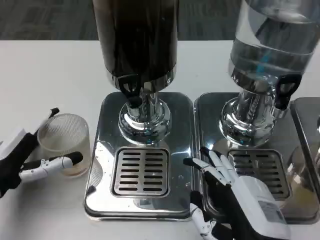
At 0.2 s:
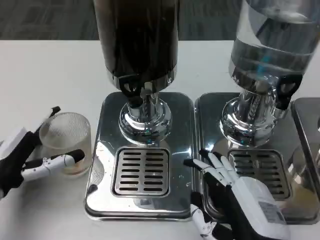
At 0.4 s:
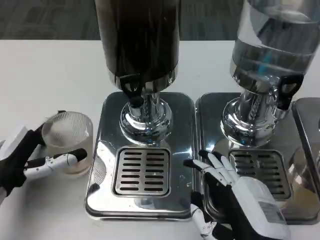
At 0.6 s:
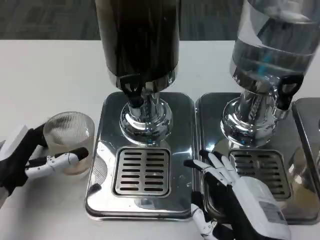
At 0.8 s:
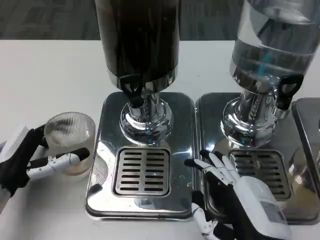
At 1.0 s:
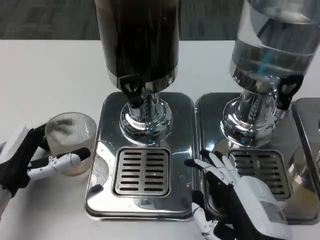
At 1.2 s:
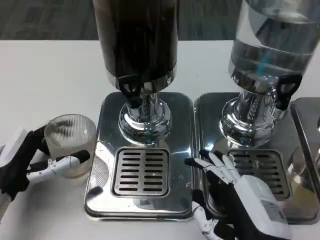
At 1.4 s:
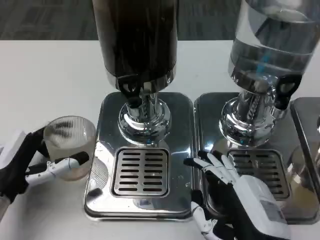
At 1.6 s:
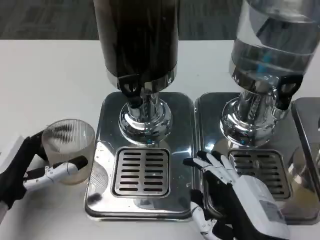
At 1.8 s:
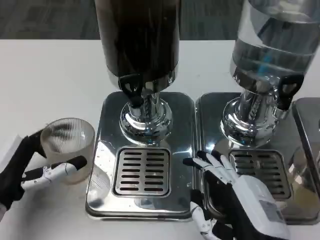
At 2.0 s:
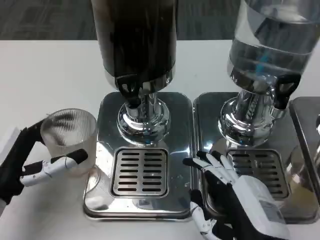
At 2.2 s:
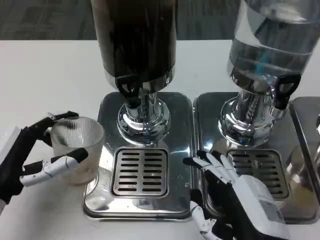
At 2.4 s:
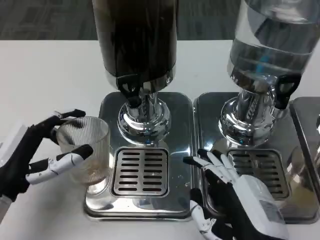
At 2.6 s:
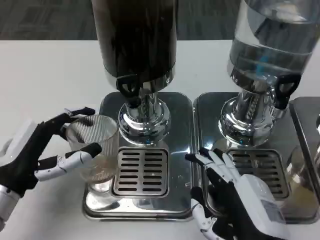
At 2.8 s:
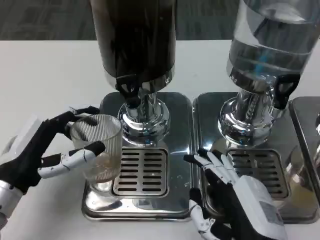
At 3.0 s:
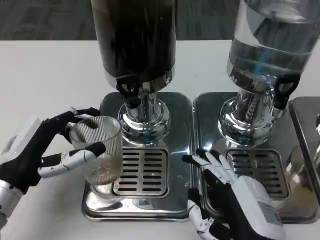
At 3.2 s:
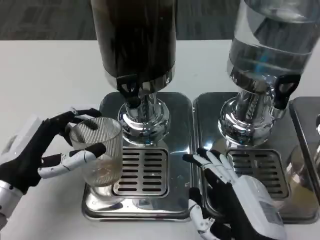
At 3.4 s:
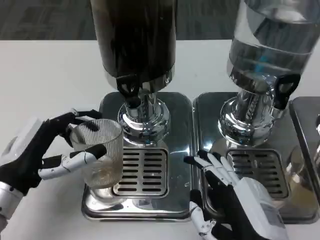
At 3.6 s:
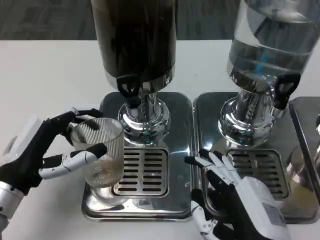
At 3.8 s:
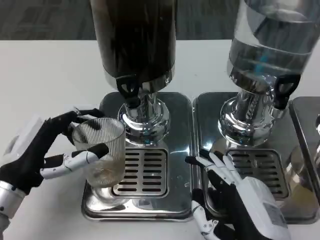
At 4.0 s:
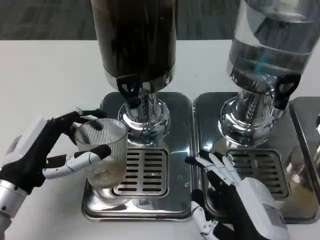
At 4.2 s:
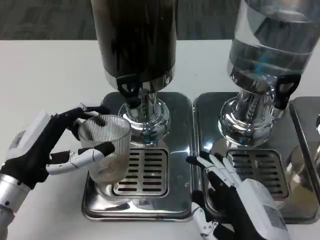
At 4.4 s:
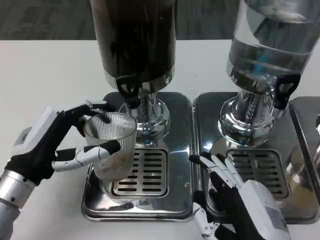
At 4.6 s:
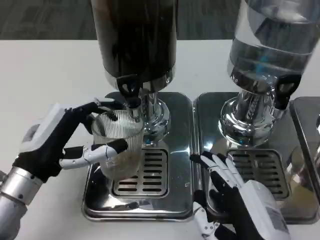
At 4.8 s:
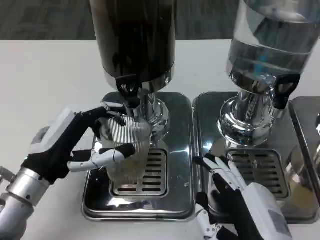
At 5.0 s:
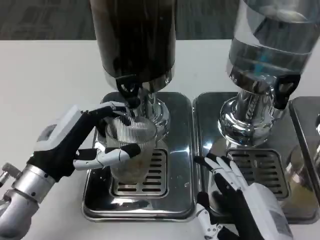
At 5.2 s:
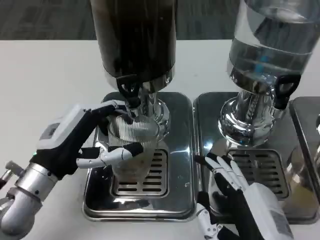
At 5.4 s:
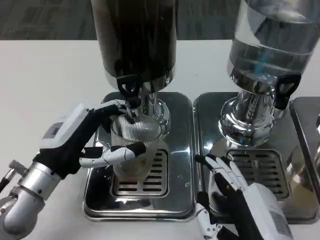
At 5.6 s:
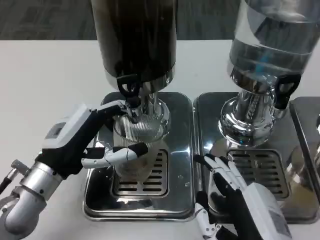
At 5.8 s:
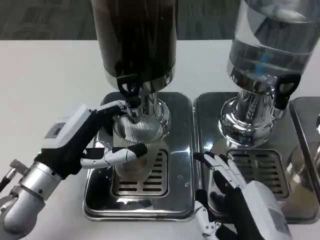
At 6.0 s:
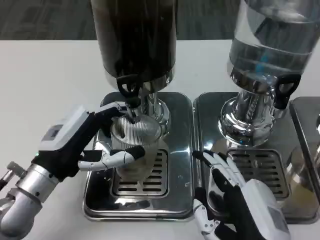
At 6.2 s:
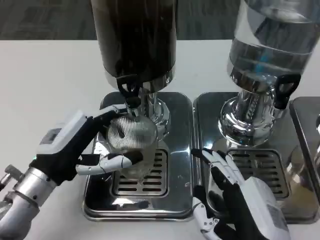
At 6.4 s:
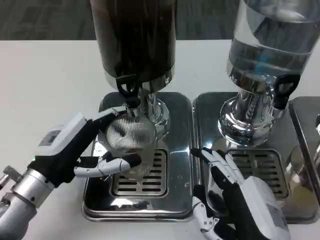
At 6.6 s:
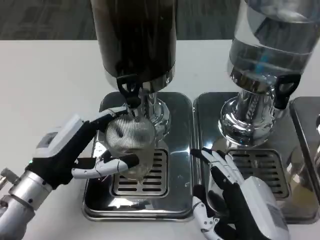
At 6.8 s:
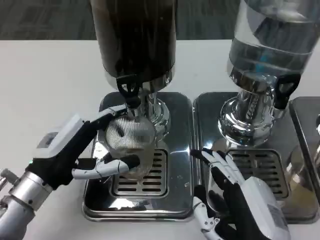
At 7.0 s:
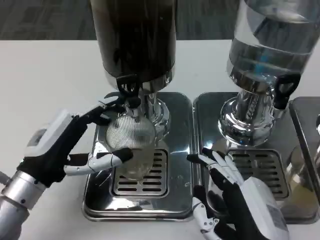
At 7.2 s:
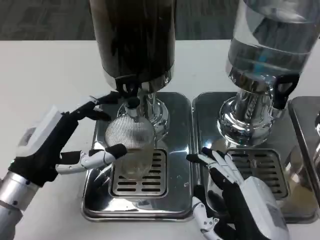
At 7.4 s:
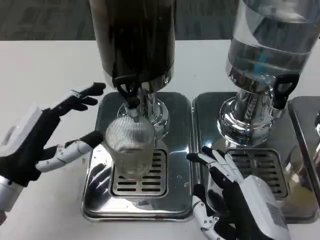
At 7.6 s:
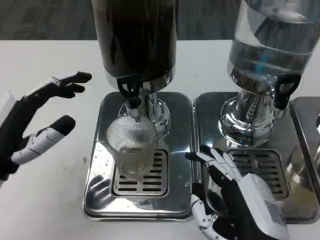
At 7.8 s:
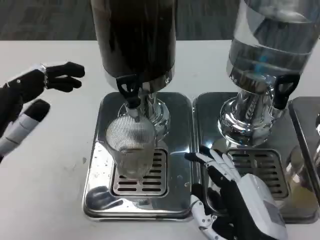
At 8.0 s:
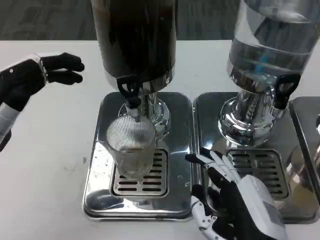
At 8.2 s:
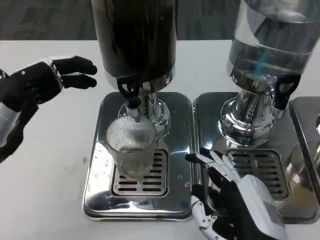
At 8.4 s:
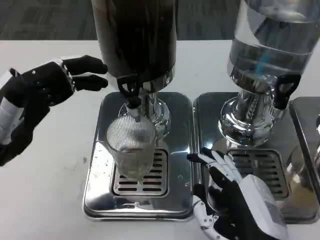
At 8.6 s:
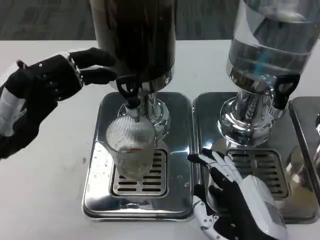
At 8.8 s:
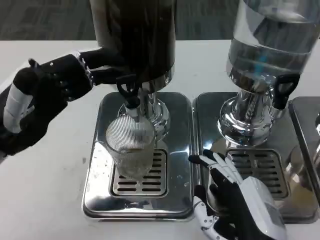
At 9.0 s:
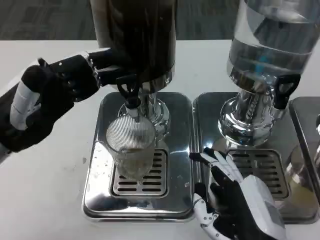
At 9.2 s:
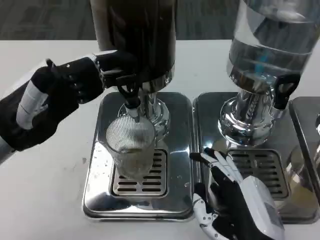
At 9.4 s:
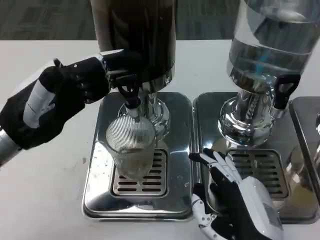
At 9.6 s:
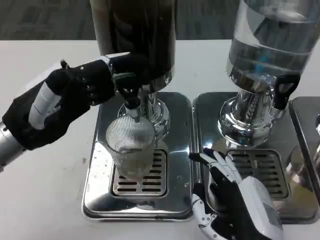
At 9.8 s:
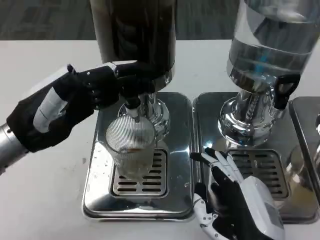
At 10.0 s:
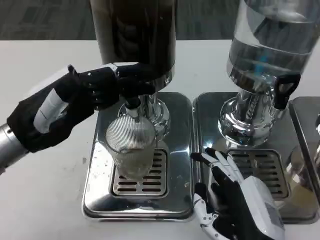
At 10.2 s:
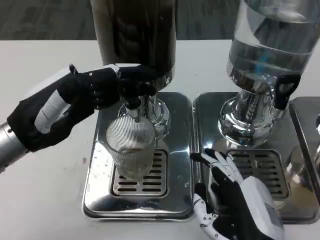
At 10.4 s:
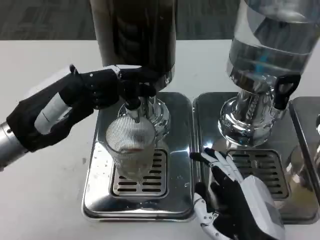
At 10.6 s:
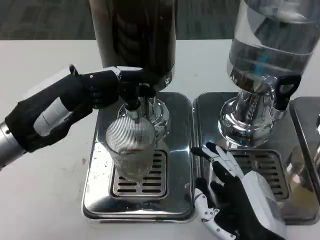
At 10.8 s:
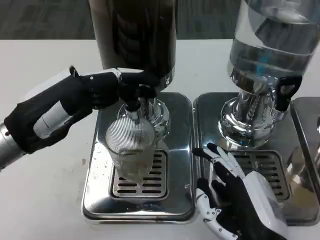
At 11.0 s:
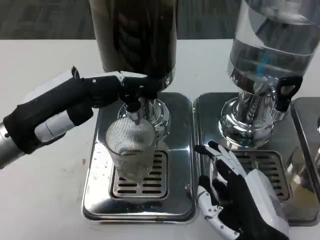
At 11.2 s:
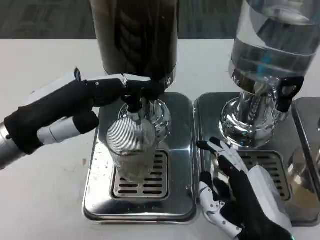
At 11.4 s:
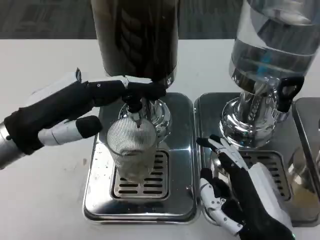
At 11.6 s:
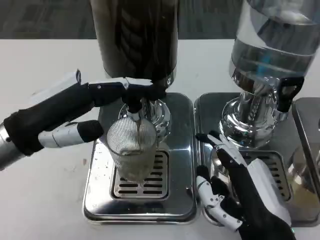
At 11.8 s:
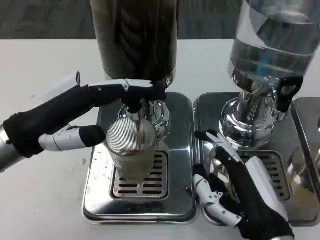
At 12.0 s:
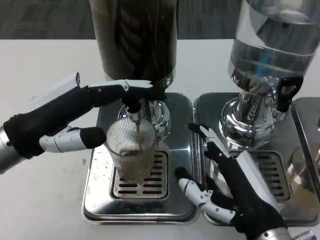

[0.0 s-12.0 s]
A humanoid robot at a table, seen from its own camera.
Task of the whole recording: Grasp the cup under the faucet to collect the drink, then remove the cup.
0.0 to 1.6 s: The hands stay close to where they were, moving slightly.
3.0 to 6.0 s: There are only small adjustments of the hands.
6.0 to 7.6 s: The left hand moves to the left, about 5 cm.
7.6 to 9.0 s: The left hand shifts by about 5 cm.
9.0 to 10.4 s: There are only small adjustments of the hands.

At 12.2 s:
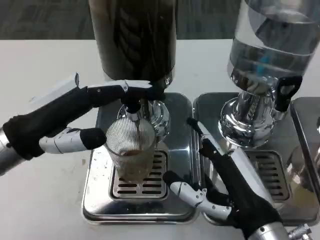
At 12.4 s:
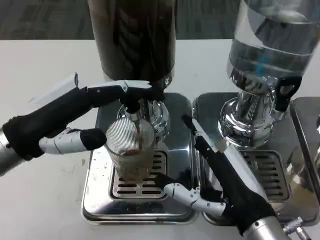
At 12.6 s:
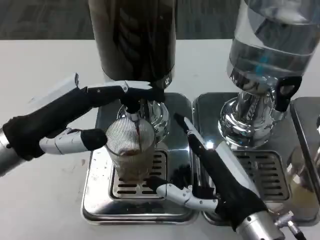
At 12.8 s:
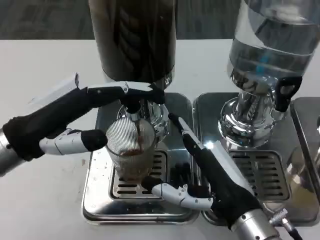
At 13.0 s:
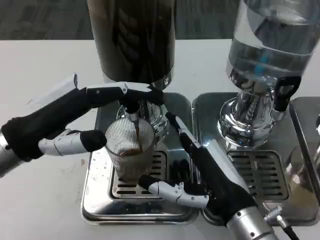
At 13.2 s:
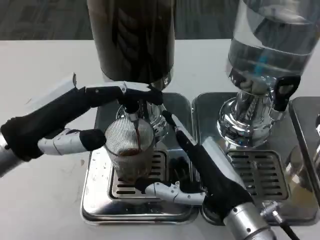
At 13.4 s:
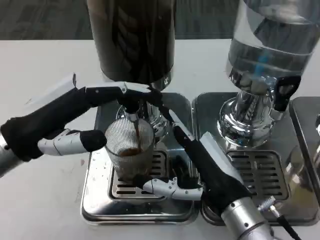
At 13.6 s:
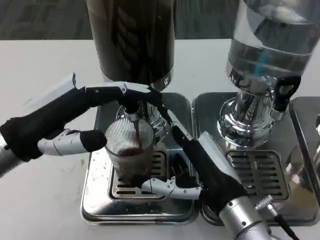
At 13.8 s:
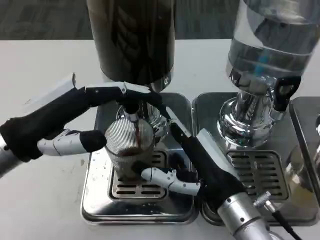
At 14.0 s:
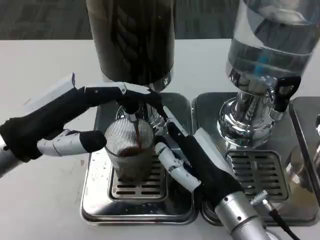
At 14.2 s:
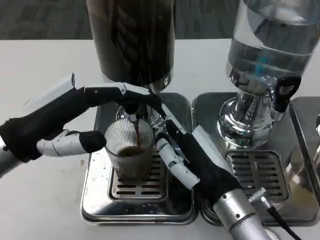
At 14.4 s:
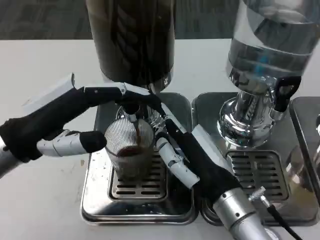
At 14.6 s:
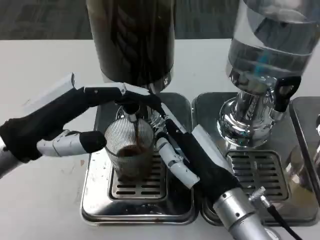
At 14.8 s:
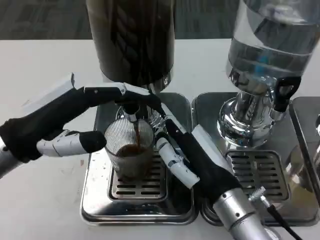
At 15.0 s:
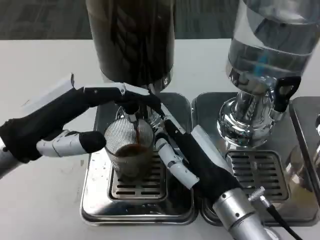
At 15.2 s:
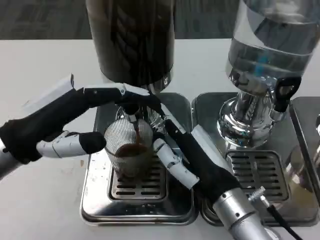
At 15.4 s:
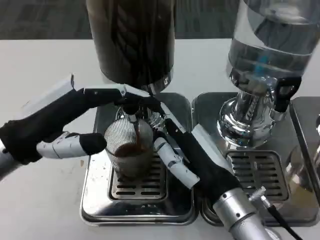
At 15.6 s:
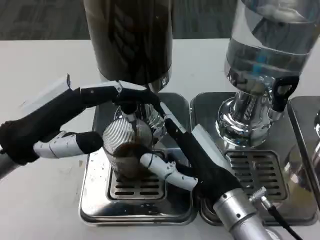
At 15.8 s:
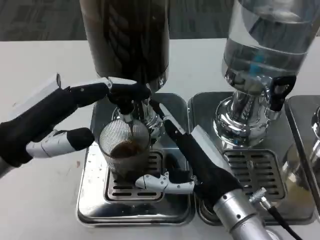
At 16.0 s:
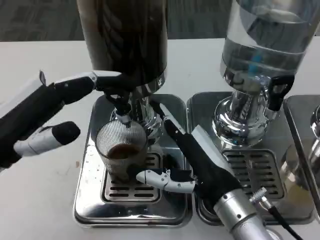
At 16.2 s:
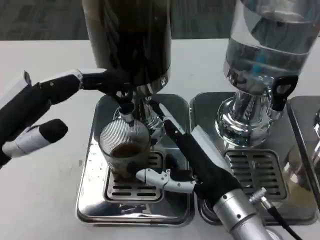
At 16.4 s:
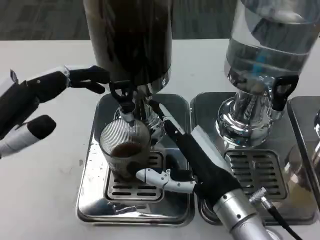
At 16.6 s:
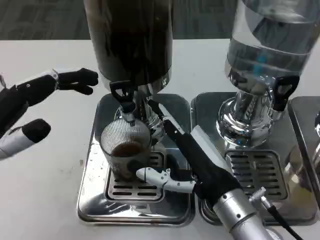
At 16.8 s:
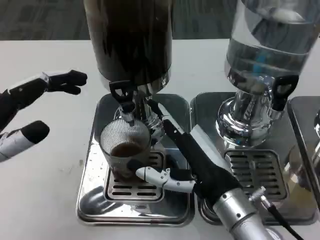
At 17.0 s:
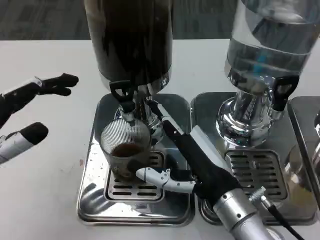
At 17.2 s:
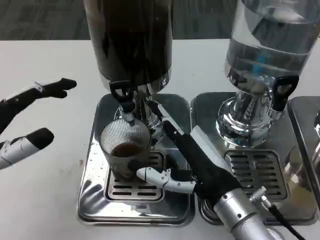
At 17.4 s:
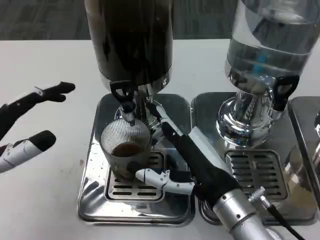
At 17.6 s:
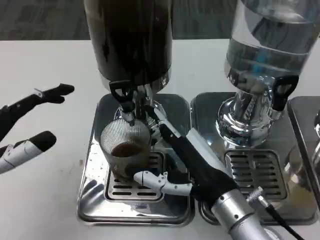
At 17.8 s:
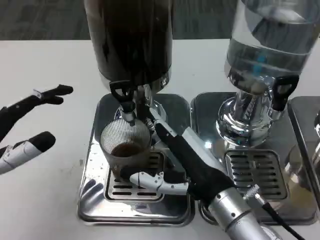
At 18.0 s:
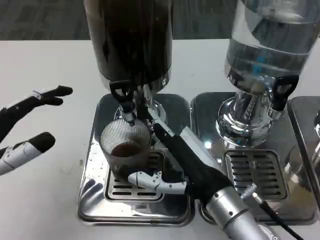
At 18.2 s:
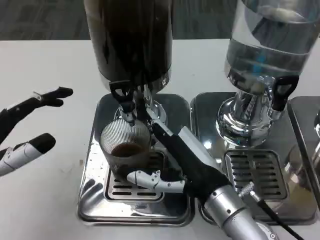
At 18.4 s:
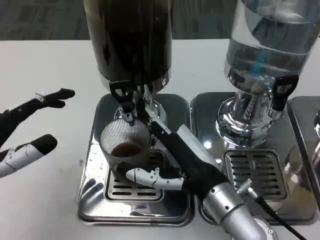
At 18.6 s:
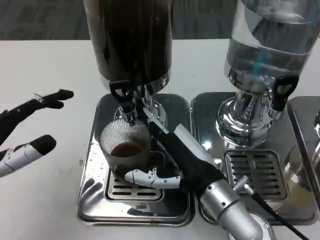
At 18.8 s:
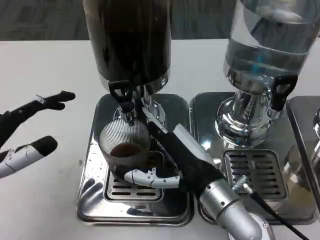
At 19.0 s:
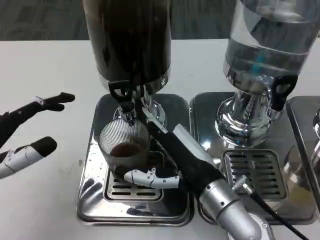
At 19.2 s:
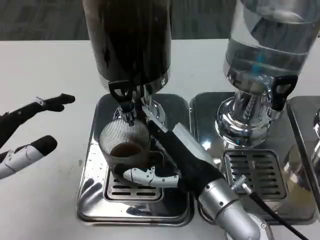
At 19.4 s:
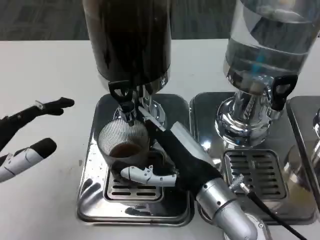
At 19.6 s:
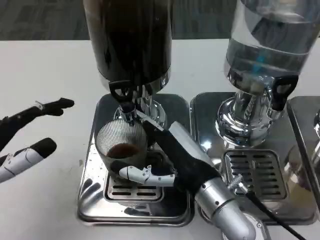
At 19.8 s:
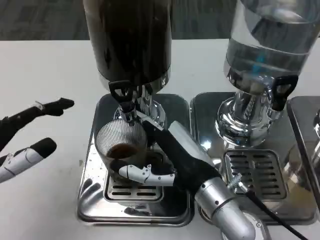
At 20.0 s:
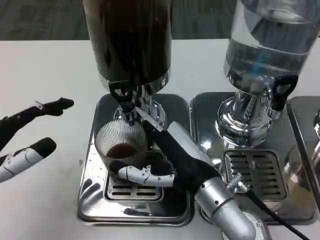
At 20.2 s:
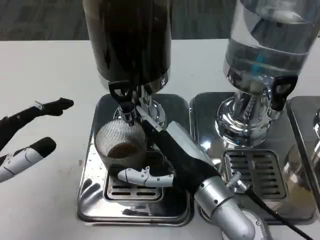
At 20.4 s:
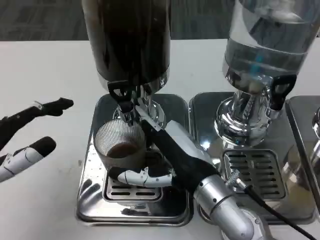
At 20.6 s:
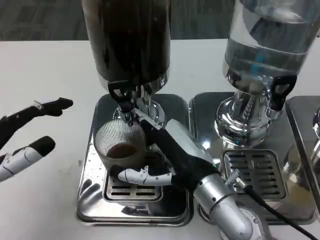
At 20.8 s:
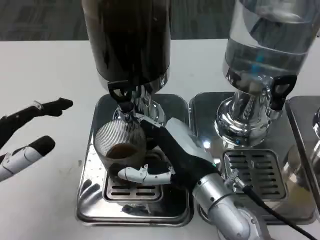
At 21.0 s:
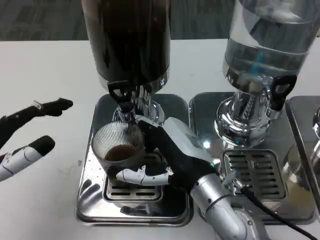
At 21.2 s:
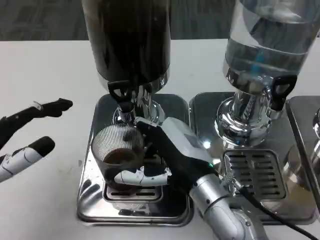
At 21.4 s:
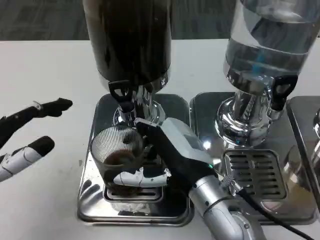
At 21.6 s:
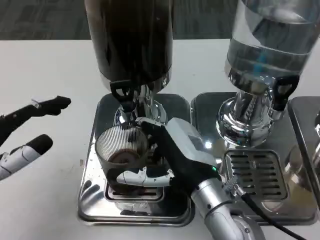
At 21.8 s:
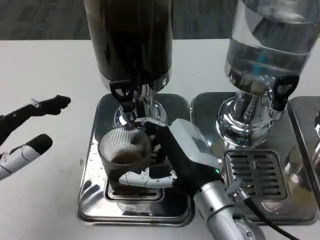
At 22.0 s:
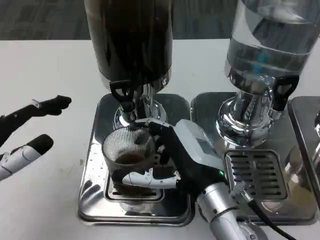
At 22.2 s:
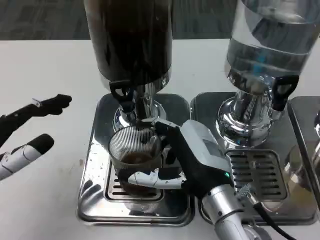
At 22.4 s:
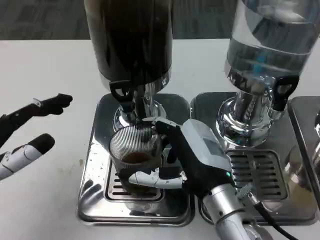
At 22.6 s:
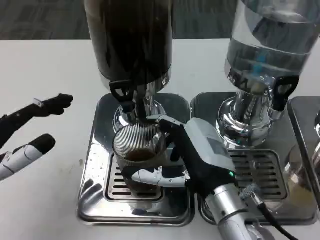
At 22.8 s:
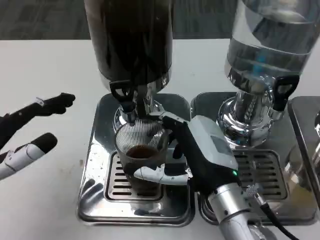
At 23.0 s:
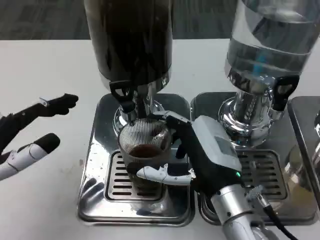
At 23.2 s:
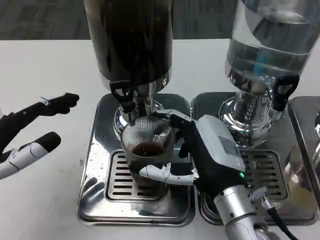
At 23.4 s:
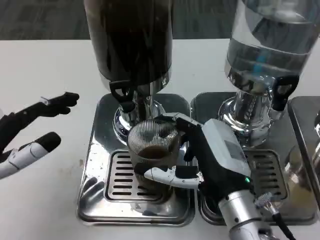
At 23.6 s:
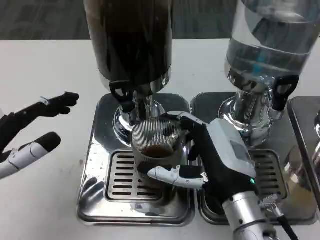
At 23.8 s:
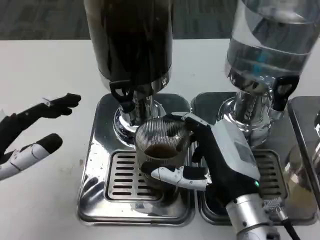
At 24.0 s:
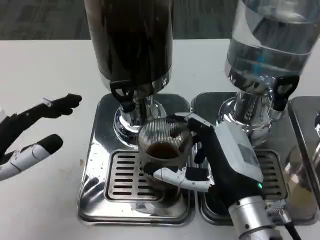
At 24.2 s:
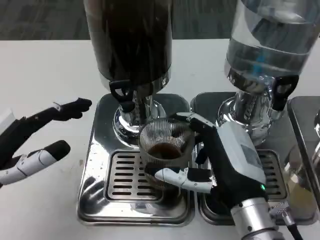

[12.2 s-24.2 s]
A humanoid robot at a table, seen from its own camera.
Task of the whole recording: Grasp the cup under the faucet to collect the drink, then remove the cup.
12.2 to 13.8 s: The right hand changes place by approximately 5 cm.
13.8 to 15.2 s: Both hands stay about where they are.
15.2 to 16.6 s: The left hand changes place by about 5 cm.
16.6 to 21.2 s: The hands stay close to where they were, moving slightly.
